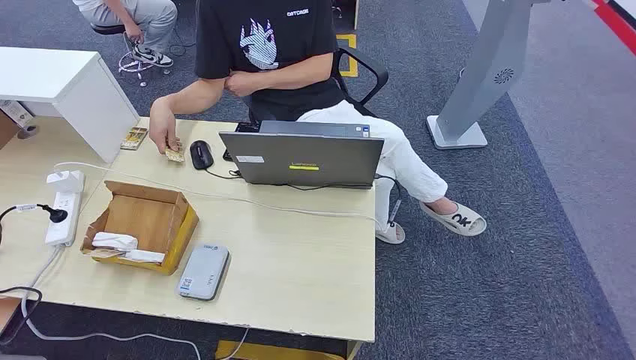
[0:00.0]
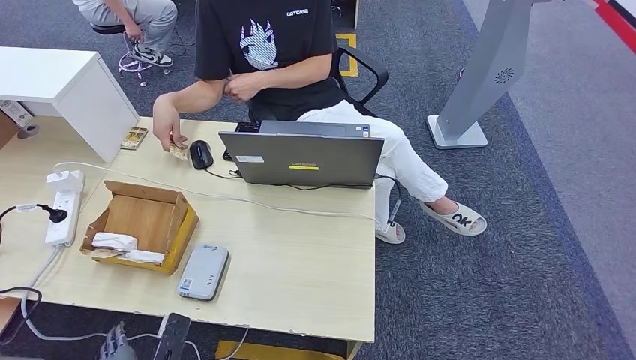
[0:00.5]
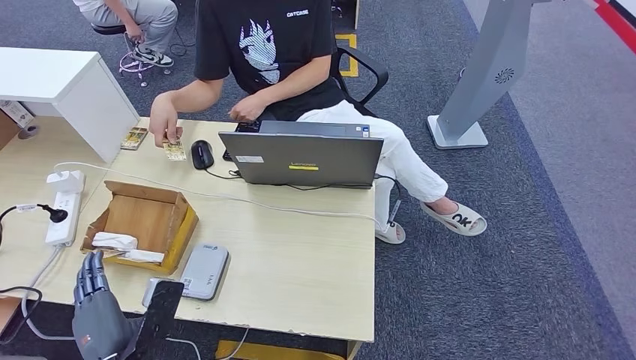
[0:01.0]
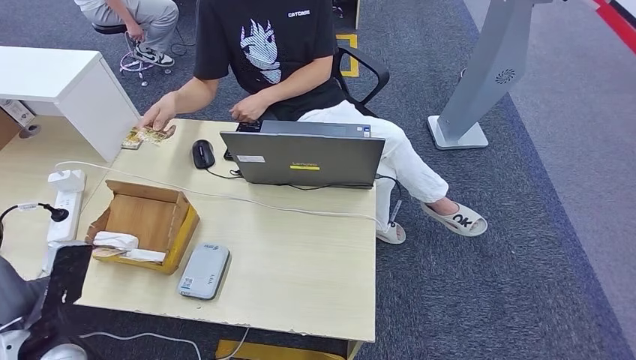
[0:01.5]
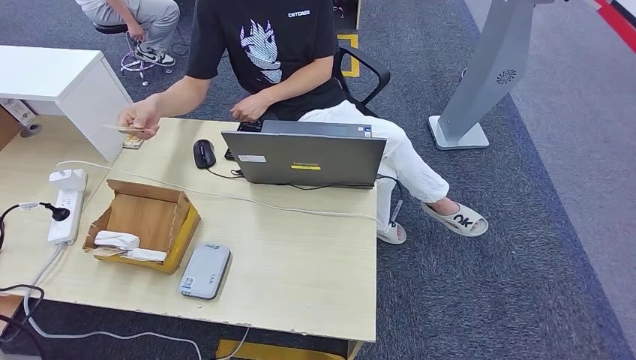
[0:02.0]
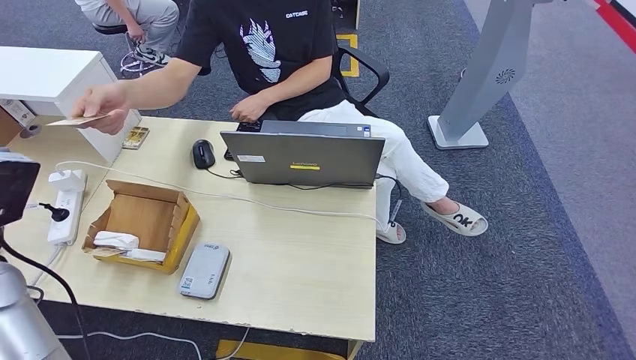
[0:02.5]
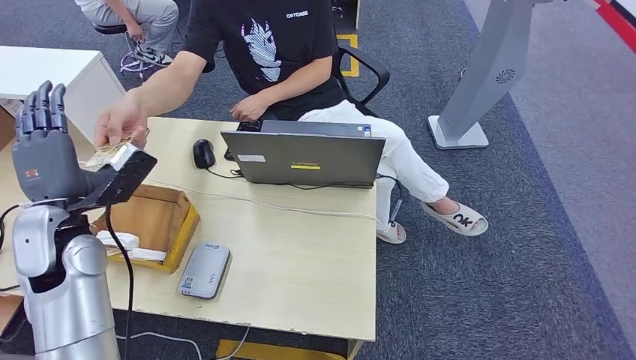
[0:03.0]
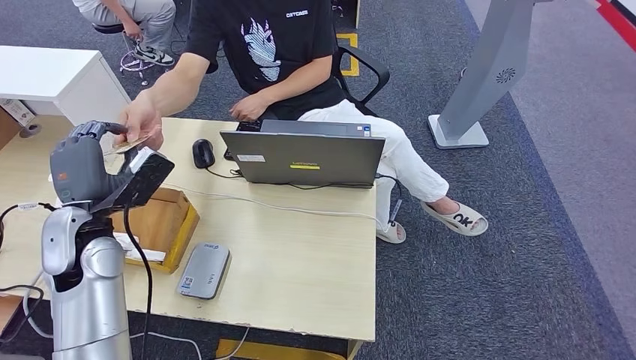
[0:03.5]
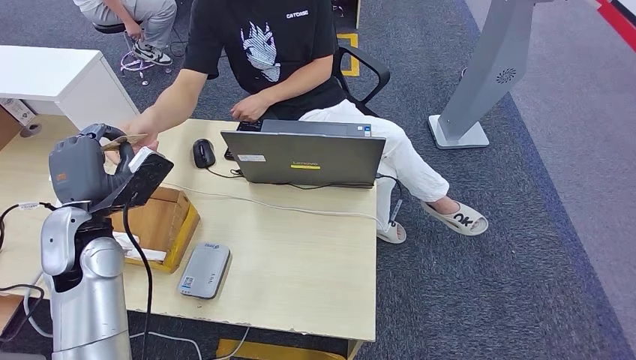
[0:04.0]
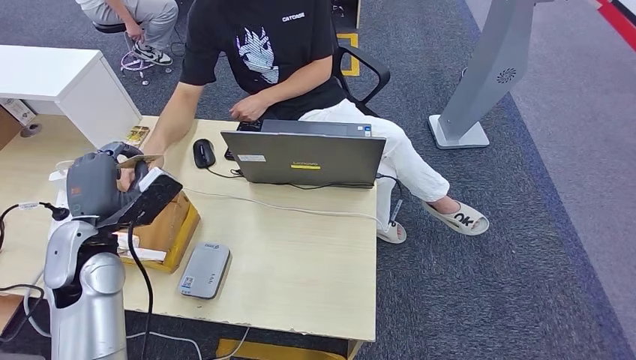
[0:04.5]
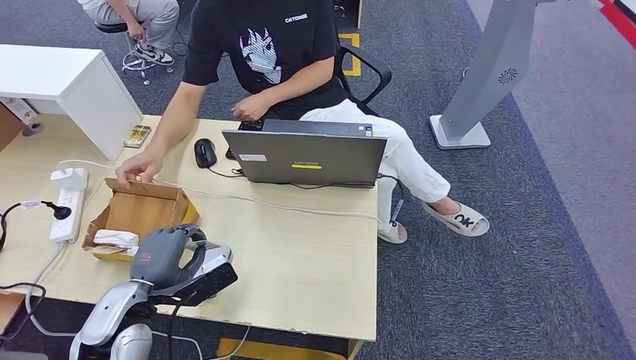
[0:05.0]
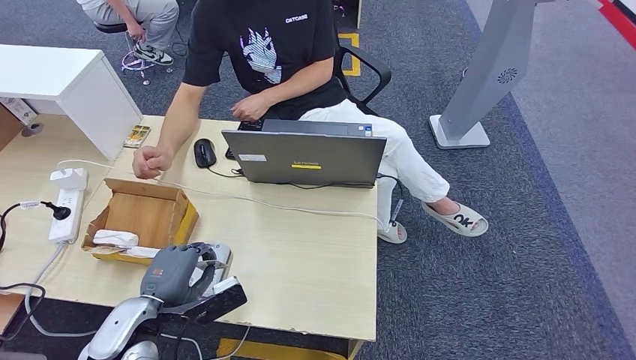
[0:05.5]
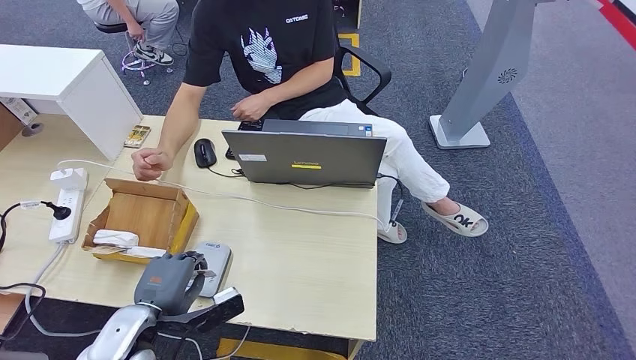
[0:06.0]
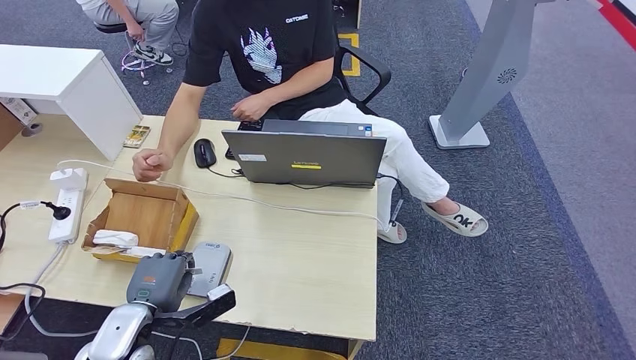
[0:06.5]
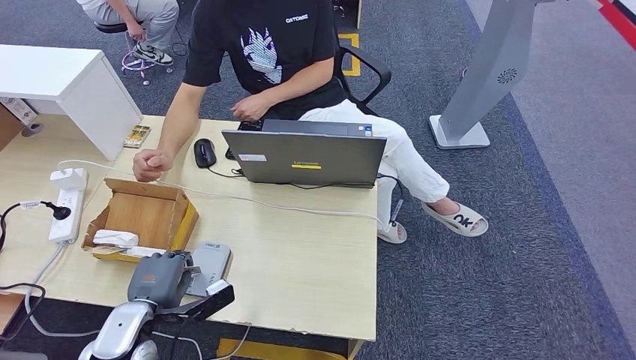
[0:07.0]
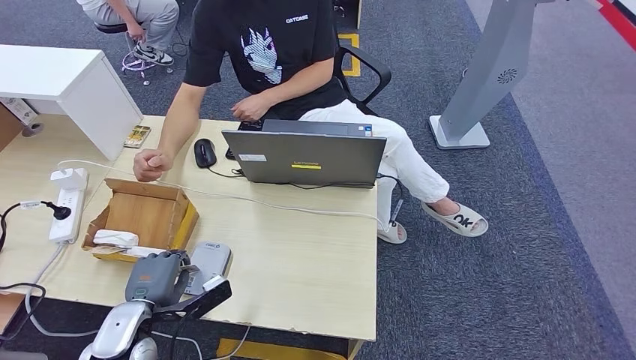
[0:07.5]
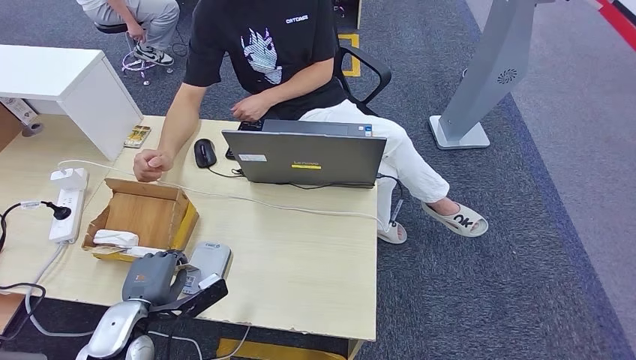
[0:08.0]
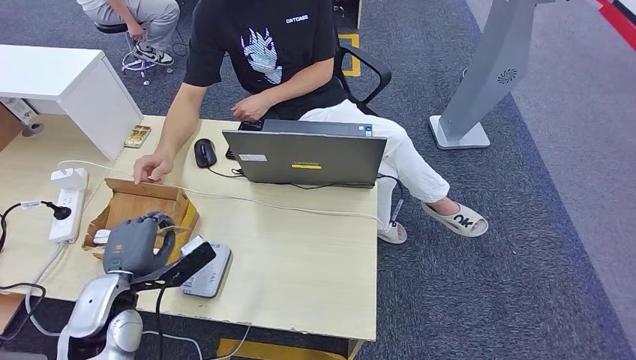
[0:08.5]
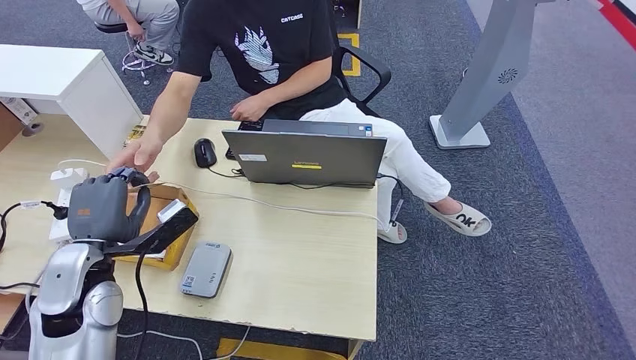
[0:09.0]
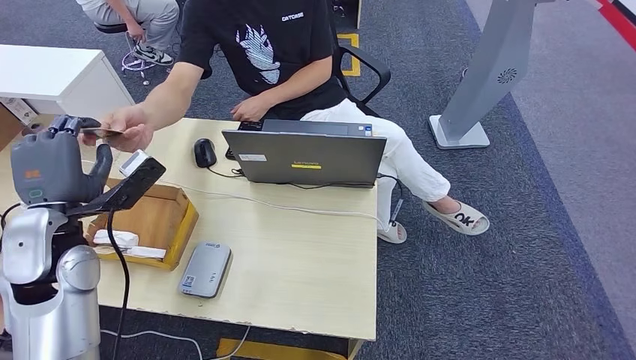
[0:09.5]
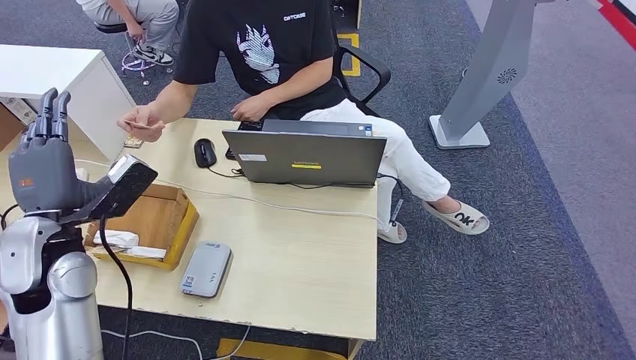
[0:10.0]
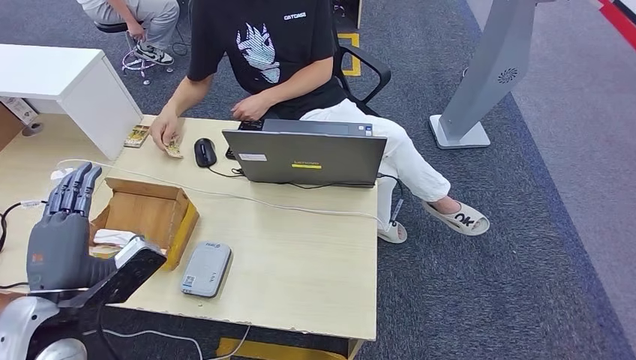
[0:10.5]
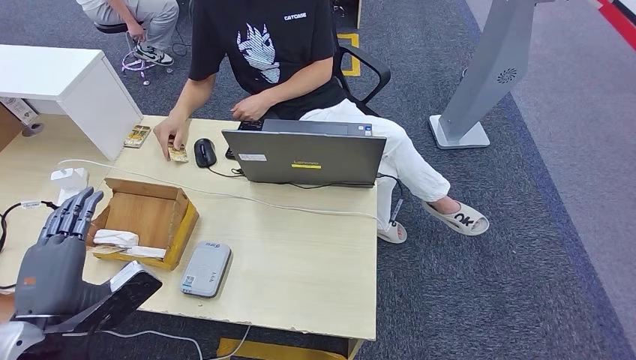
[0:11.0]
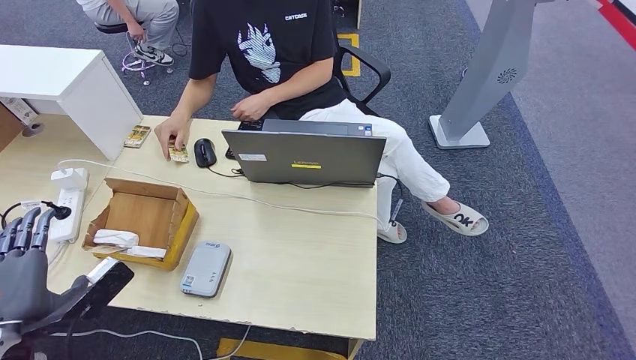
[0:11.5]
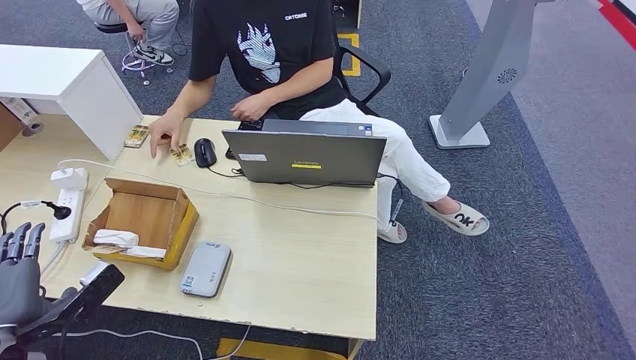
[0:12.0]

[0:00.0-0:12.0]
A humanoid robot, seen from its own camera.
Step, 0:00.0 to 0:04.5: Take the ID card from the person's hand.
Step, 0:05.5 to 0:07.5: Place the ID card on the card reader.
Step, 0:09.0 to 0:11.0: Hand the ID card to the person.
0:02.0 to 0:04.0: The left hand goes about 20 cm forward and to the right.
0:04.0 to 0:06.0: The left hand moves backward, downward and to the right, about 15 cm.
0:06.0 to 0:08.0: The hands stay close to where they were, moving slightly.
0:08.0 to 0:10.0: The left hand is displaced upward and forward by approximately 20 cm.
0:10.0 to 0:12.0: The left hand moves backward and downward, approximately 20 cm.

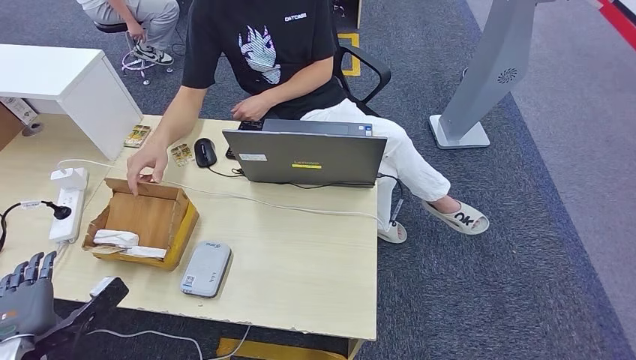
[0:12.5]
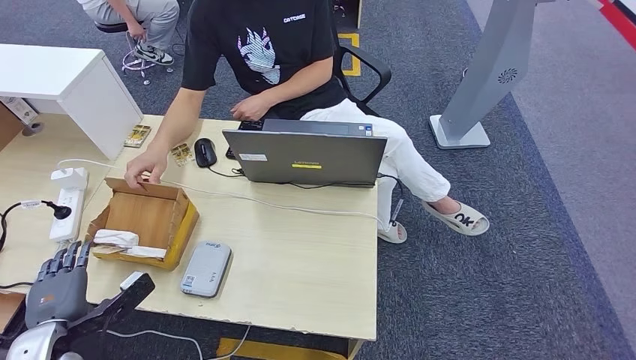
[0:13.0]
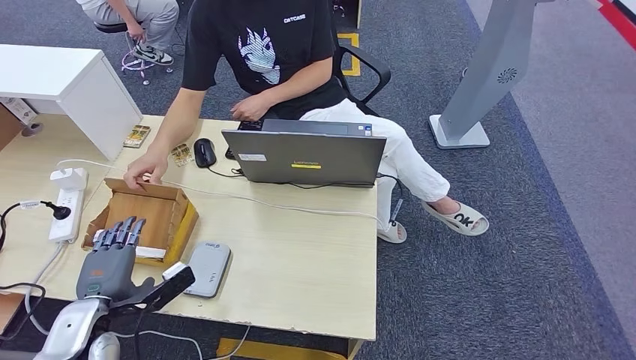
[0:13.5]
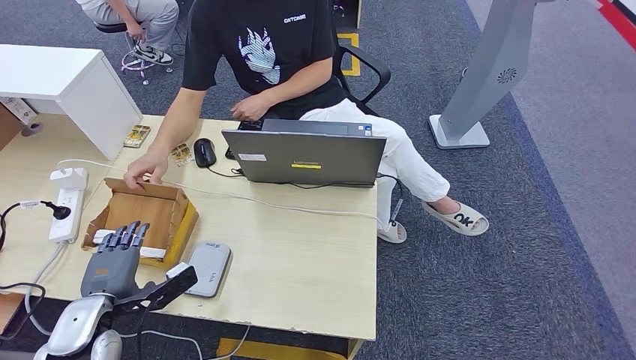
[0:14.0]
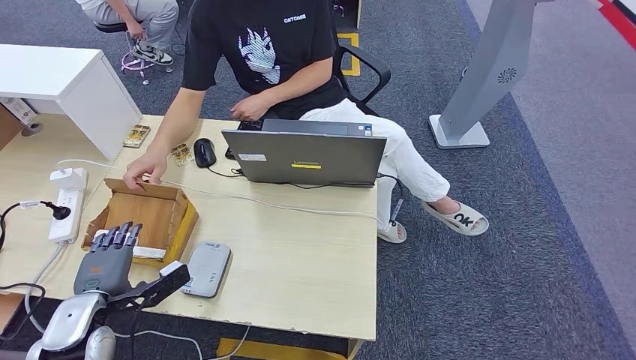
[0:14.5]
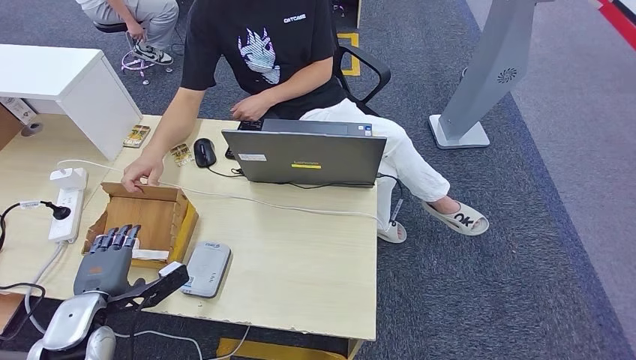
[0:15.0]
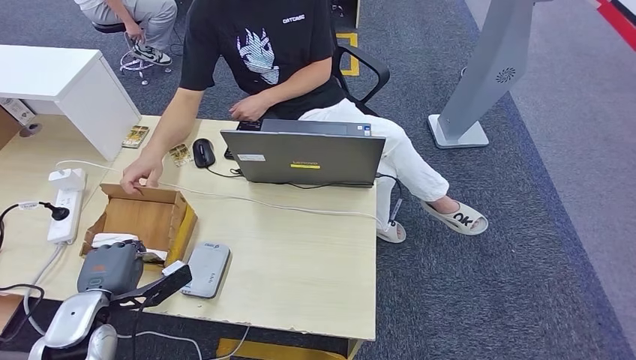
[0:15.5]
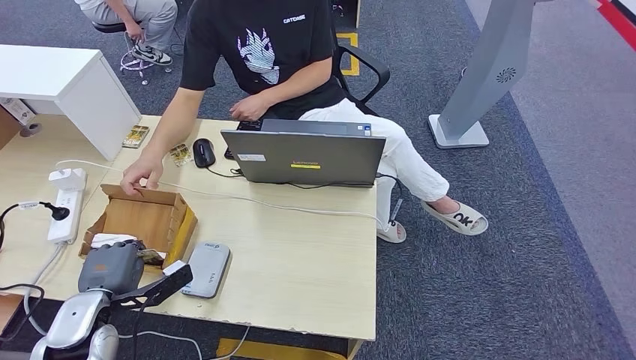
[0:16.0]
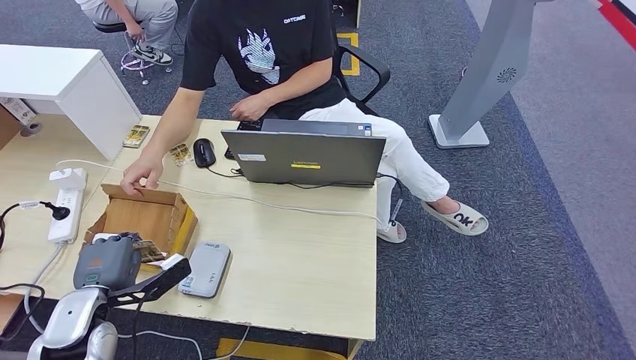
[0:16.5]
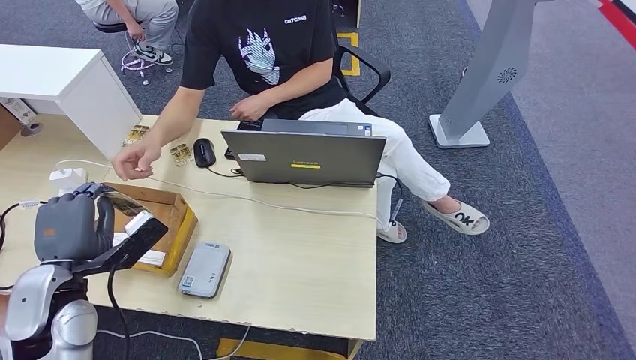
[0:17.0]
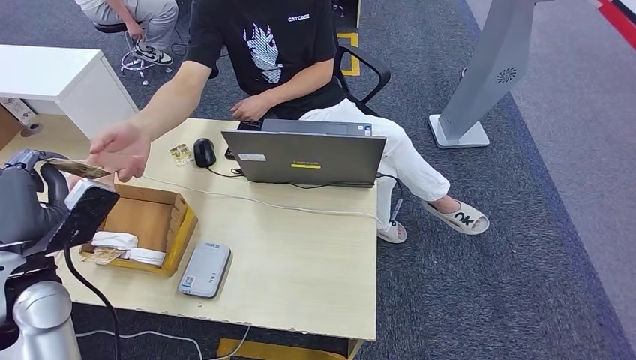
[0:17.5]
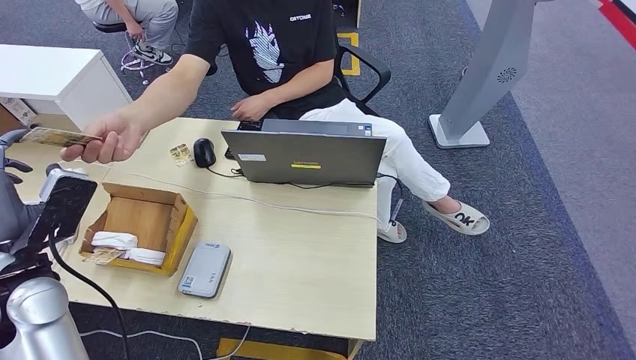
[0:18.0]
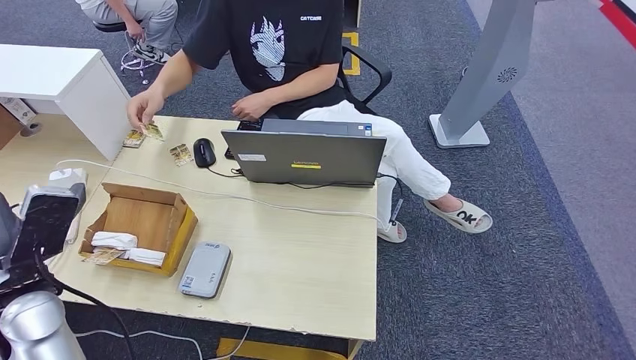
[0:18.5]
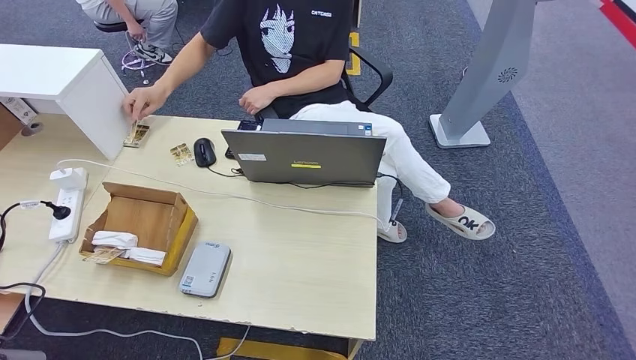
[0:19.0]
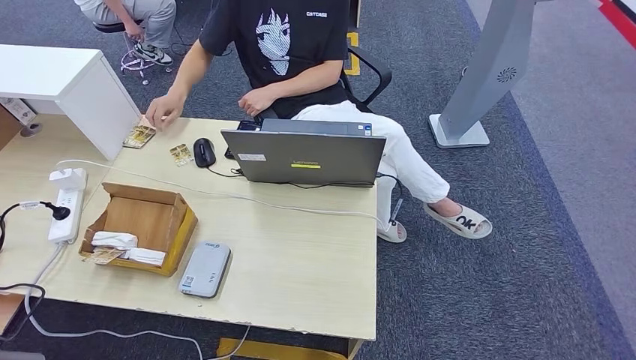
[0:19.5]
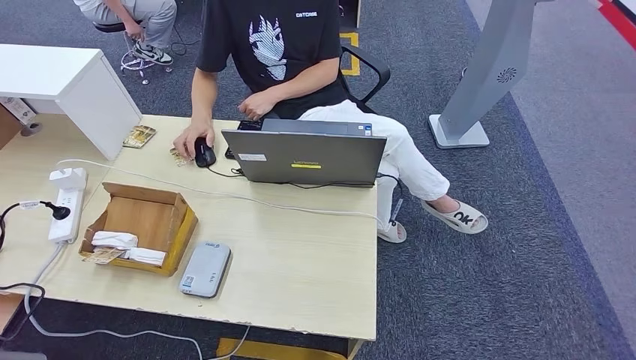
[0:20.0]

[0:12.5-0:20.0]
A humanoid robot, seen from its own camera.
Step, 0:12.5 to 0:16.5: Pick up the room key from the key card box.
Step, 0:17.5 to 0:20.0: Hand the room key to the person.
0:12.5 to 0:14.5: The left hand shifts some 10 cm forward.
0:14.5 to 0:16.5: There are only small adjustments of the hands.
0:16.5 to 0:18.0: The left hand goes roughly 10 cm upward.
0:18.0 to 0:20.0: The left hand is displaced downward and backward by approximately 25 cm.
